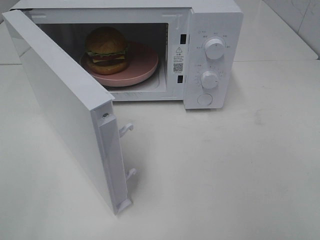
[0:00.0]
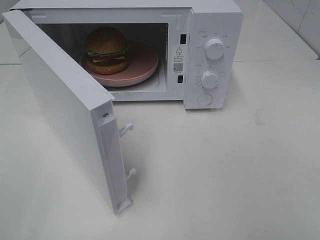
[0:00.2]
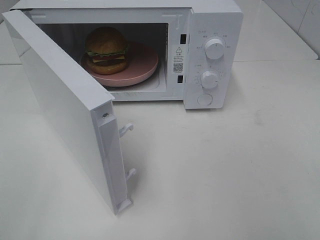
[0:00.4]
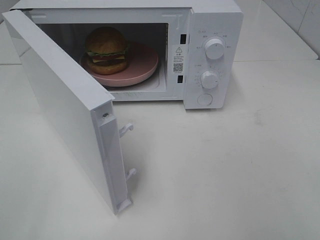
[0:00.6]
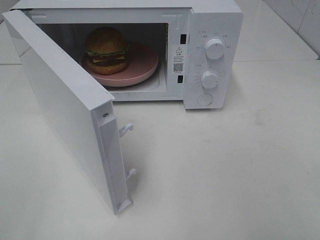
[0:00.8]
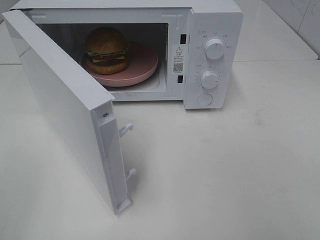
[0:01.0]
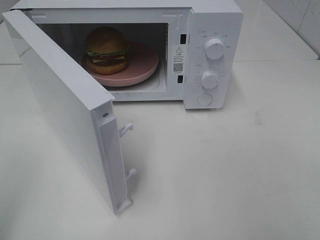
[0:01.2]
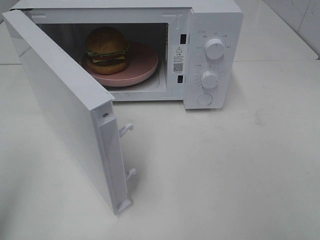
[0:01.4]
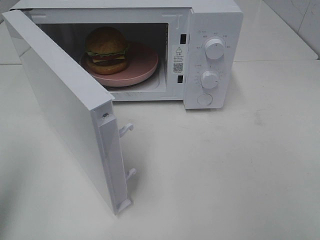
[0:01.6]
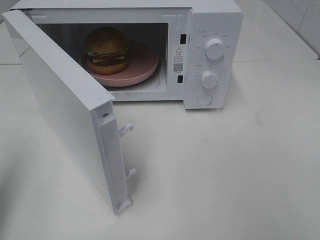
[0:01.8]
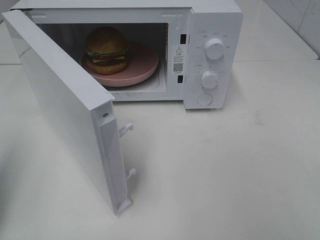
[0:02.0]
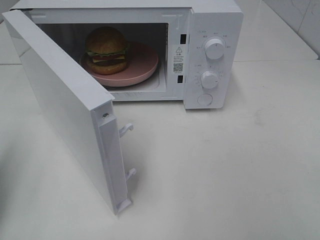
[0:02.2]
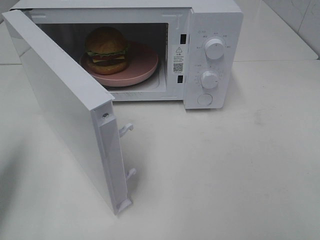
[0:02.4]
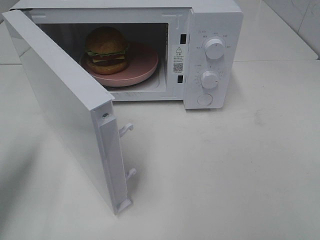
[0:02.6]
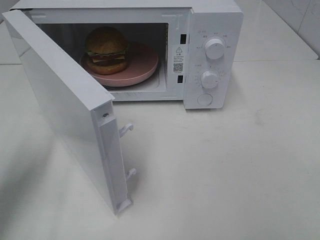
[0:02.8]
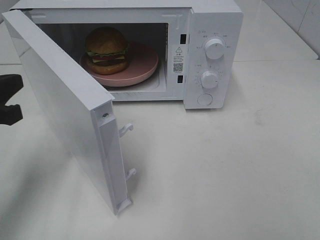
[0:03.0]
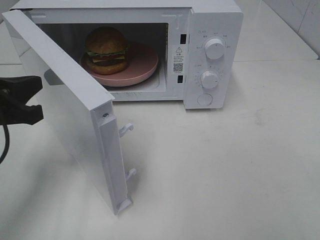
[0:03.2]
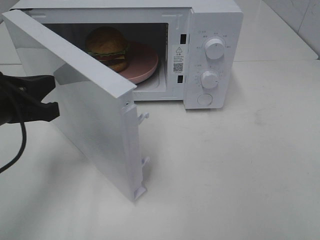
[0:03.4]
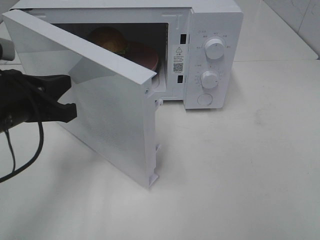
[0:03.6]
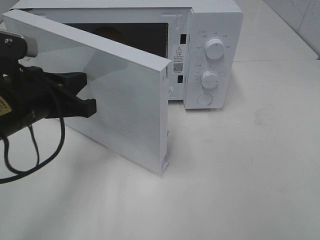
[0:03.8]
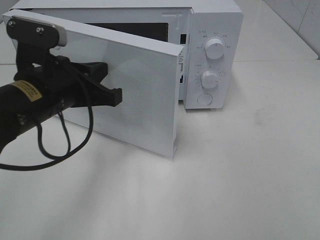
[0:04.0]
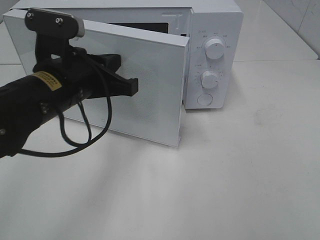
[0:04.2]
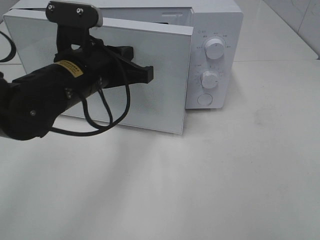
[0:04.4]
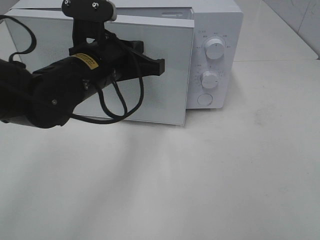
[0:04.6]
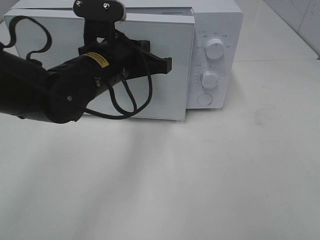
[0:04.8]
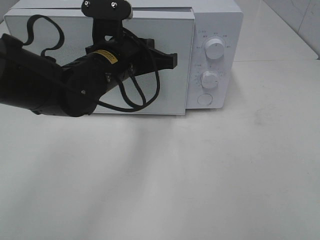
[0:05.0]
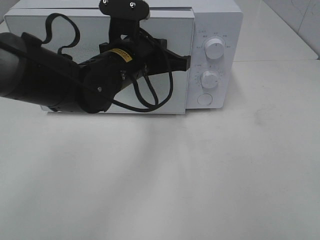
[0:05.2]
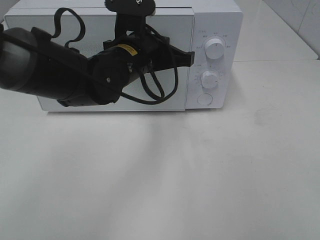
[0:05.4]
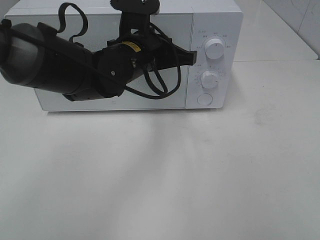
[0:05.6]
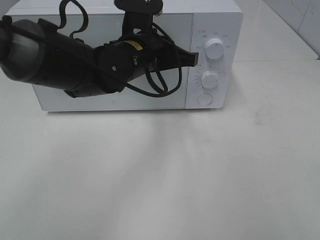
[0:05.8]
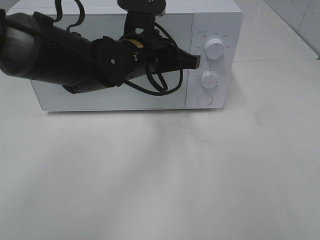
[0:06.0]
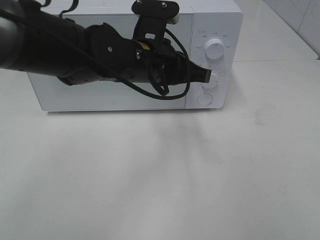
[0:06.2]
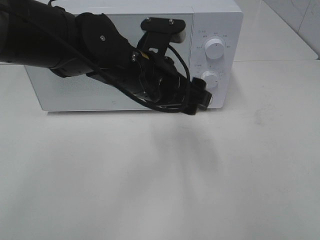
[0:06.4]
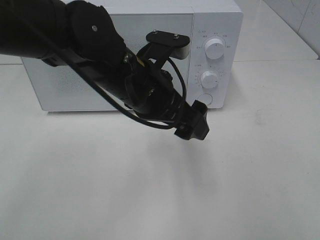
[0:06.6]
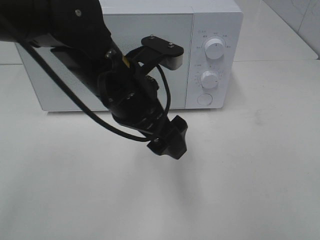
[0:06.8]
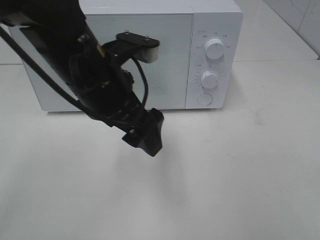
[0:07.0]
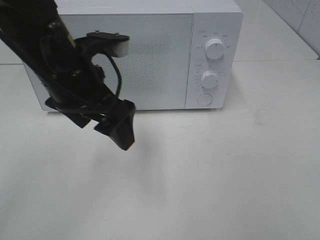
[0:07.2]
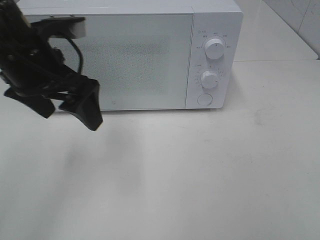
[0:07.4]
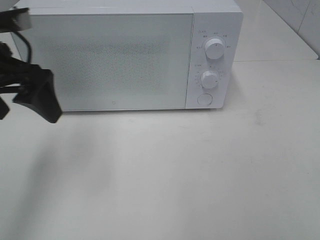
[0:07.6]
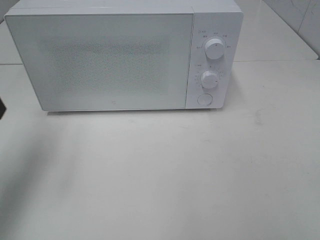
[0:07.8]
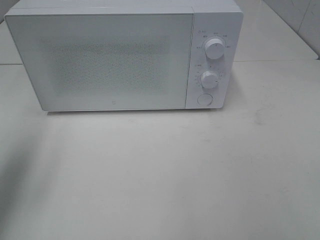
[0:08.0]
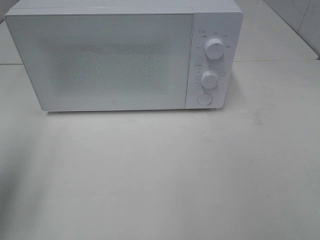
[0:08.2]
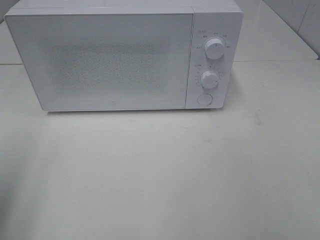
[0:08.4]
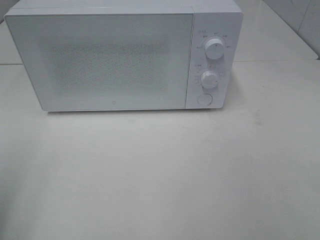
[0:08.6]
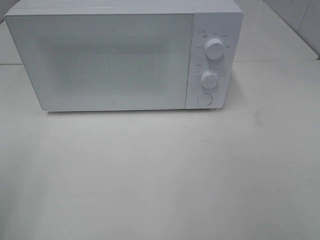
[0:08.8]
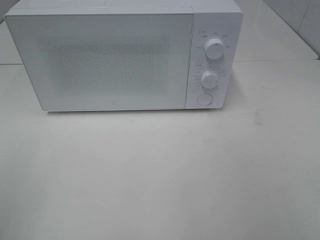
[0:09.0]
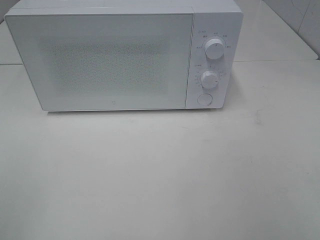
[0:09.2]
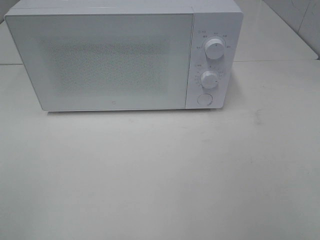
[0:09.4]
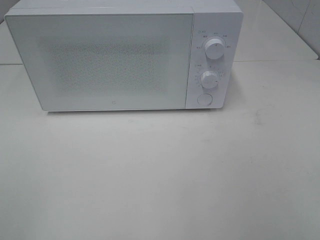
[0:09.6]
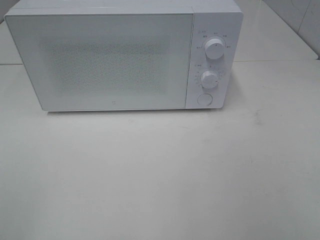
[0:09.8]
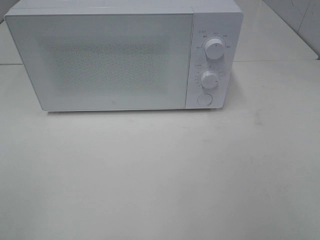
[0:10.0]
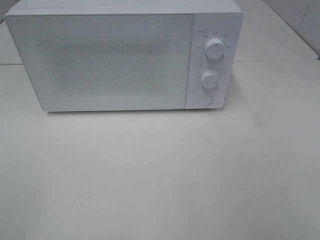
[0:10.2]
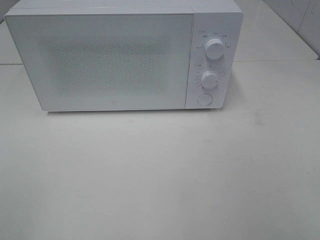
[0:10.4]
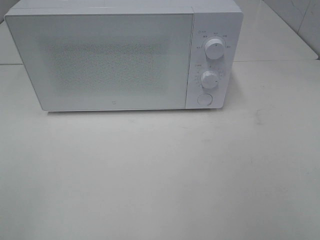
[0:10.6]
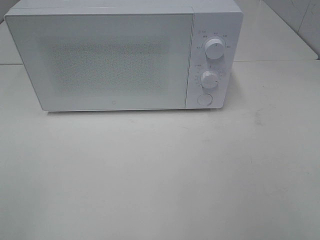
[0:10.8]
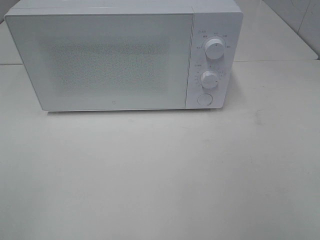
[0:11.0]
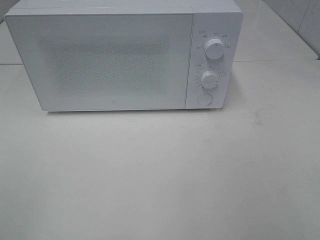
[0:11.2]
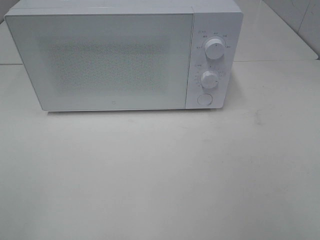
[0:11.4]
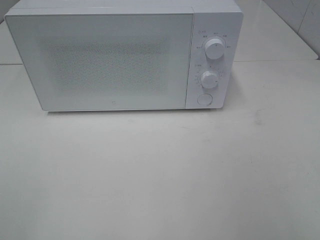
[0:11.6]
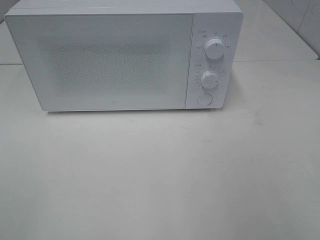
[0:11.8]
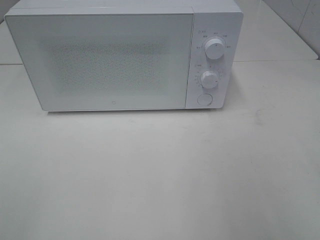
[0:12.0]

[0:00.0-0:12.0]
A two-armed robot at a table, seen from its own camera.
Task of the whole recording: Heat the burger.
Step, 0:00.0 to 0:06.0: Left hand: close the microwave door.
0:00.0 to 0:01.6: The left gripper travels forward by approximately 10 cm, and closes up.
0:01.6 to 0:03.0: The left gripper travels downward, forward and to the right by some 15 cm.
0:03.0 to 0:04.4: The left gripper moves to the right and forward, roughly 15 cm.
0:04.4 to 0:06.0: The left gripper is displaced to the right and forward by about 10 cm.
0:06.0 to 0:07.6: The left gripper shifts about 20 cm to the left, and opens its fingers.
0:07.6 to 0:09.0: The left gripper moves backward, approximately 25 cm.

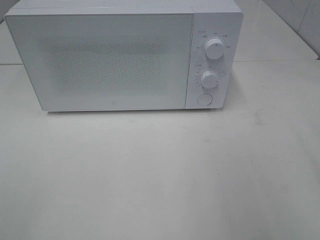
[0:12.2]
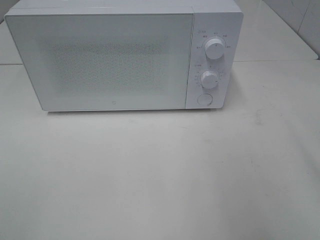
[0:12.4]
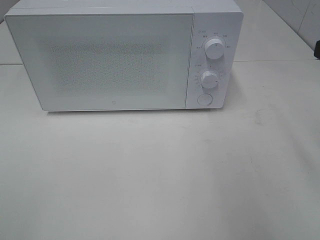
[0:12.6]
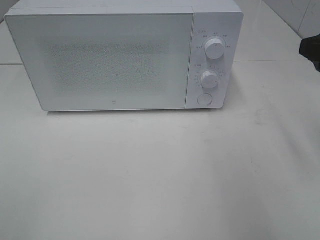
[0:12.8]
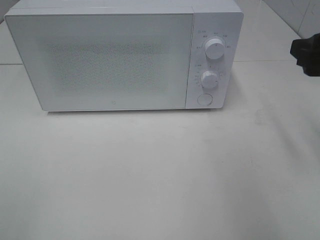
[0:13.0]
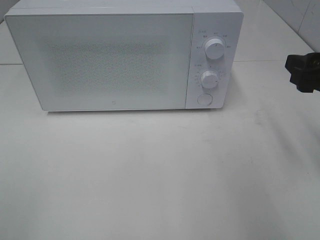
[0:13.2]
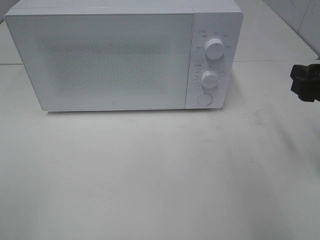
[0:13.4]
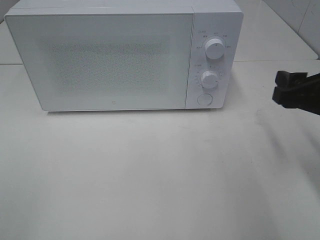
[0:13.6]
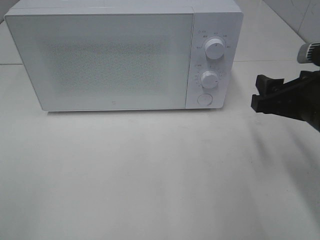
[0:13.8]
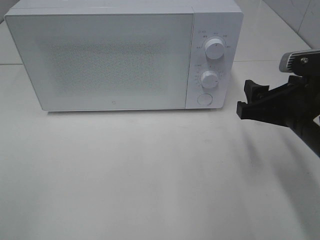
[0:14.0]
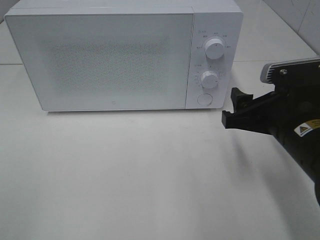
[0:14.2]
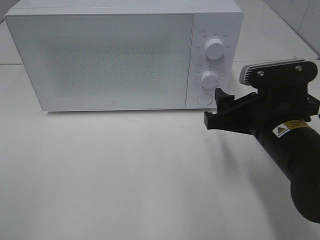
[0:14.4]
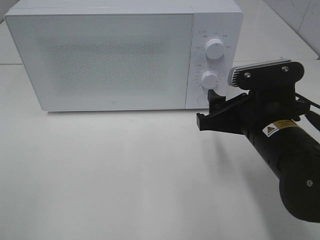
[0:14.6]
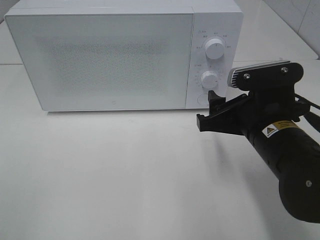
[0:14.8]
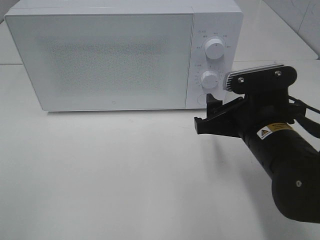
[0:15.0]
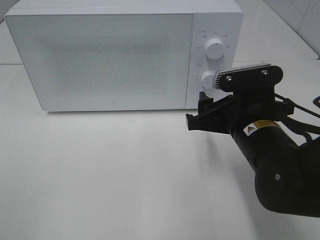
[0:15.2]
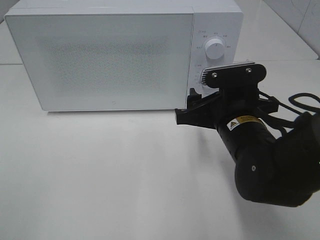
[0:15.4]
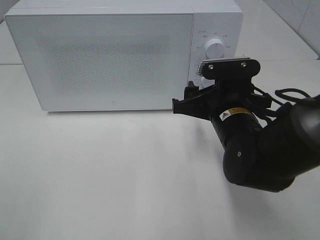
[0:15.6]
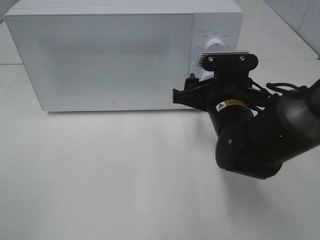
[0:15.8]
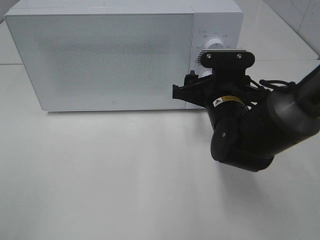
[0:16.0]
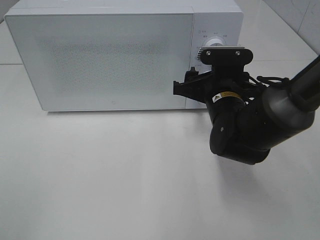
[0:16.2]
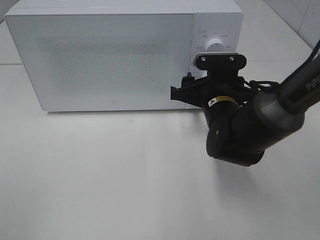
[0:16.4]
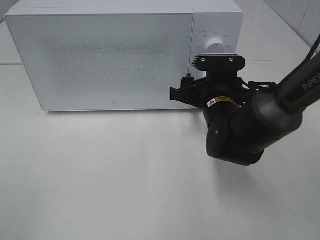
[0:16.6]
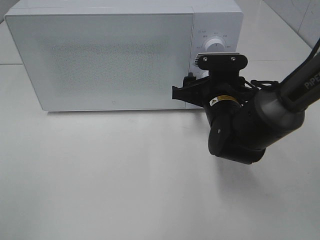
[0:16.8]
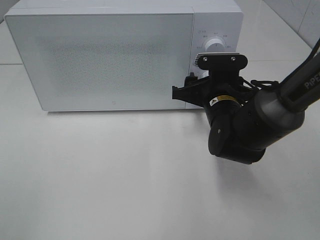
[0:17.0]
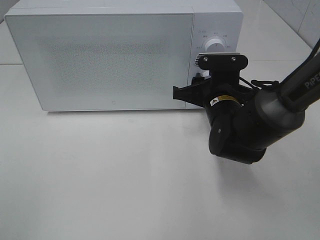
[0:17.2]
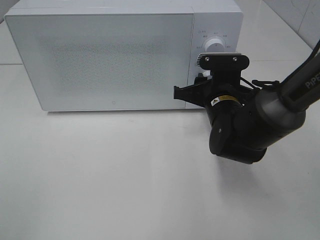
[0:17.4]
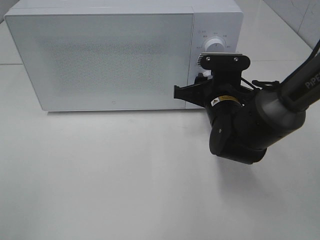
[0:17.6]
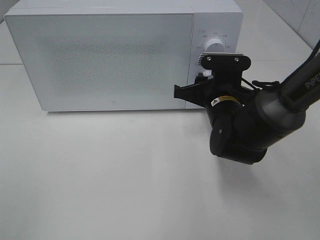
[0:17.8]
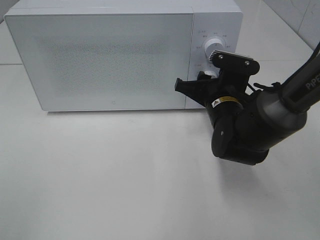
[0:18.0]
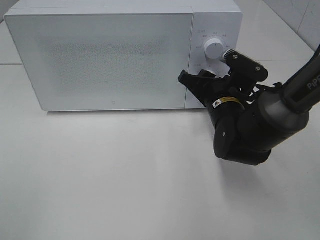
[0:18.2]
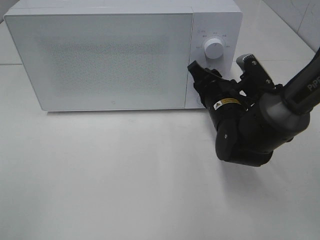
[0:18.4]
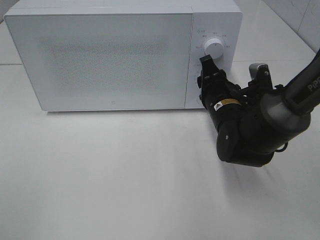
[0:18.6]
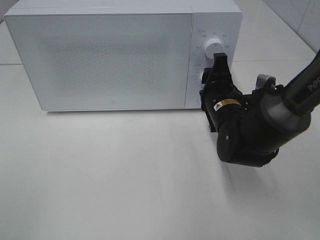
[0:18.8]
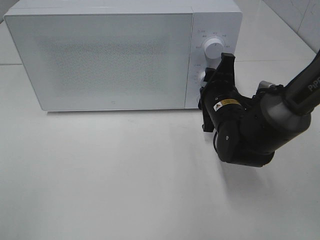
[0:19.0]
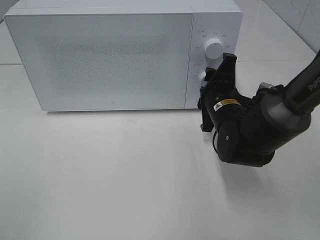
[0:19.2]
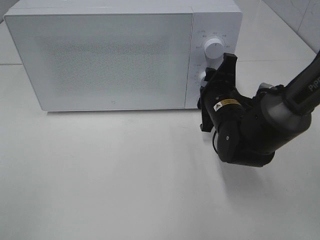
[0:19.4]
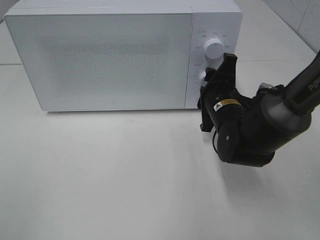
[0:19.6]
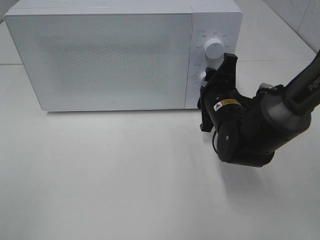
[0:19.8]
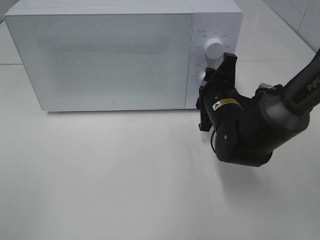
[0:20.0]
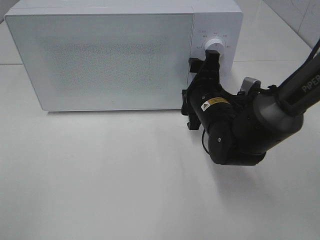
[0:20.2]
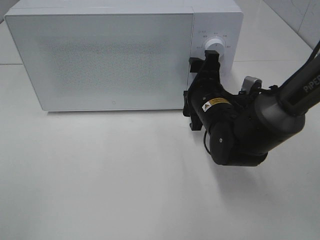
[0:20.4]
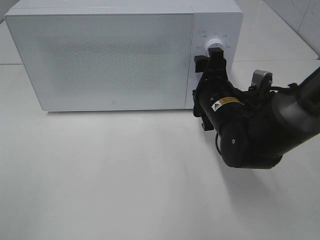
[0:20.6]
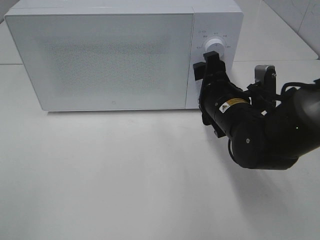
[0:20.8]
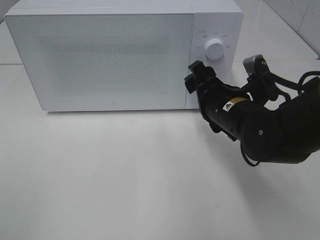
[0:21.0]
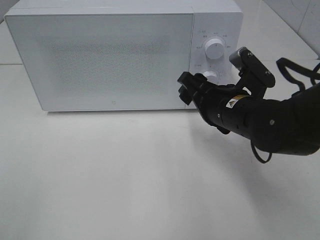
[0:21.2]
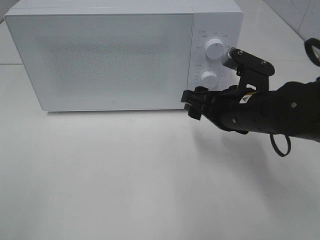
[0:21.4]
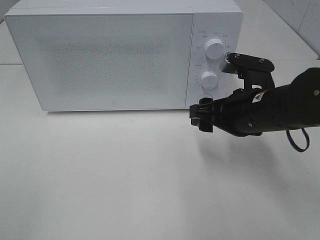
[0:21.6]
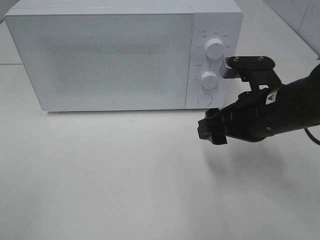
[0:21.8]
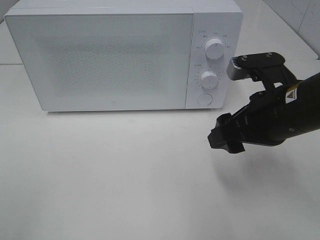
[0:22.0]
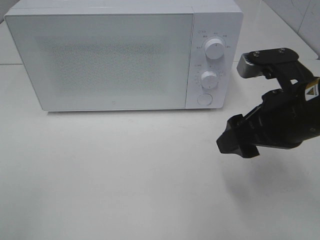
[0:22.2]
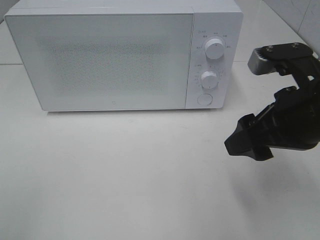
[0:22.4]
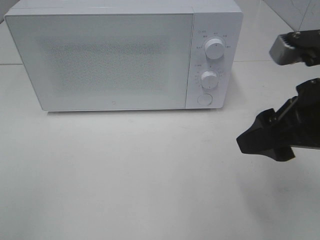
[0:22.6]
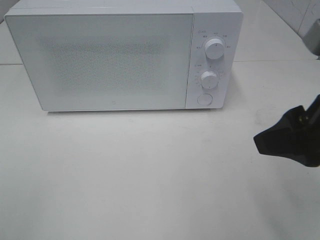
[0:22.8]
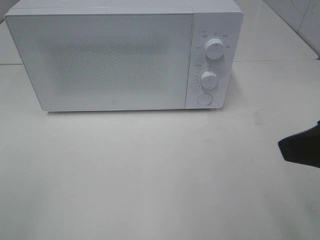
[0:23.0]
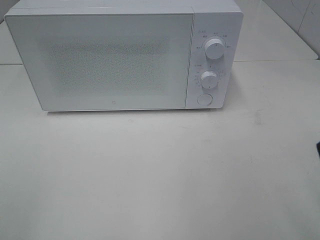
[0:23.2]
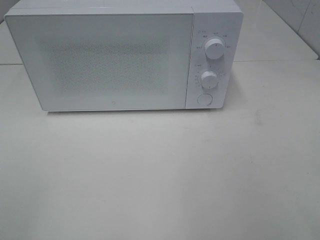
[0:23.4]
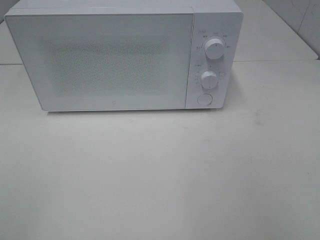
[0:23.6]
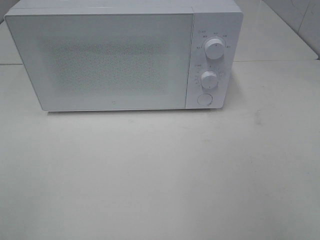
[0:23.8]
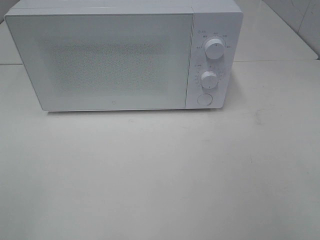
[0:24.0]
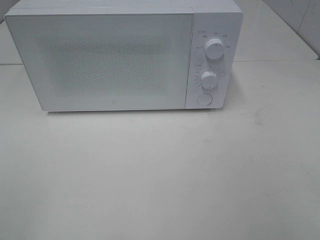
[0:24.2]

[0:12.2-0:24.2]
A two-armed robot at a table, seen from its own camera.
Task of the whole recording: Heat the burger.
Step, 0:12.2 to 0:20.0: Right hand: twist timer button.
0:12.2 to 0:13.8: The right gripper is displaced downward, forward and to the left by roughly 15 cm.
0:13.8 to 0:15.2: The right gripper moves to the left, some 10 cm.
0:15.2 to 0:16.6: The right gripper moves forward, approximately 10 cm.
0:16.6 to 0:18.2: The right gripper closes its fingers.
0:19.8 to 0:21.2: The right gripper moves approximately 5 cm, and opens.
0:21.2 to 0:22.6: The right gripper moves upward, backward and to the right, roughly 15 cm.
0:22.6 to 0:24.2: The right gripper heads backward and to the right, covering roughly 20 cm.
